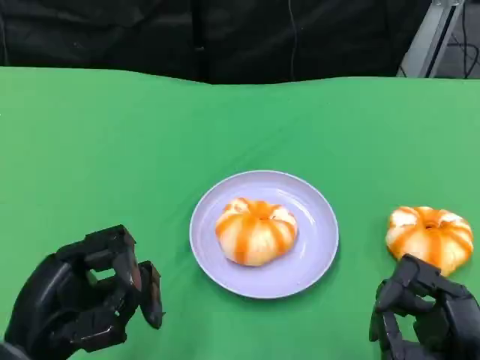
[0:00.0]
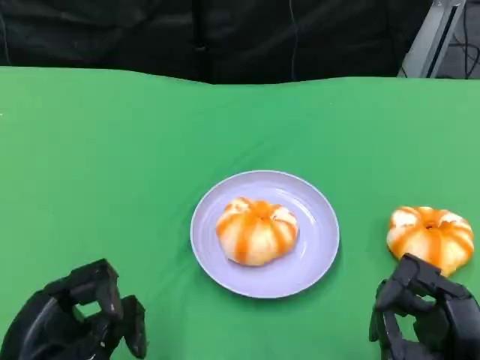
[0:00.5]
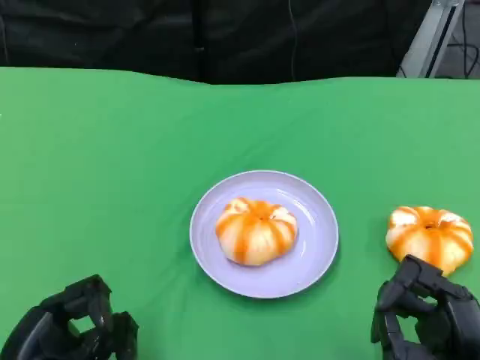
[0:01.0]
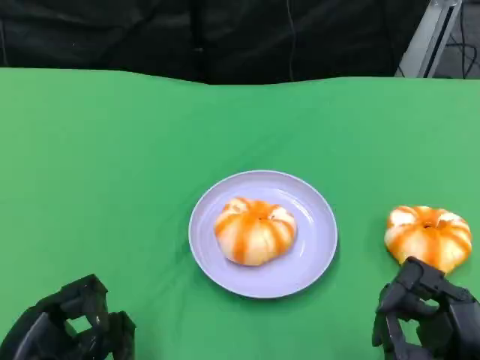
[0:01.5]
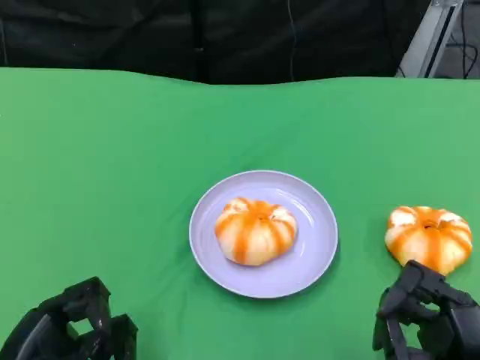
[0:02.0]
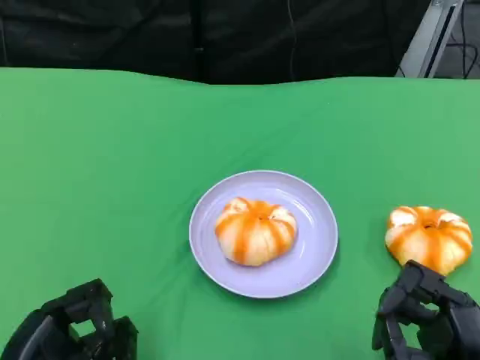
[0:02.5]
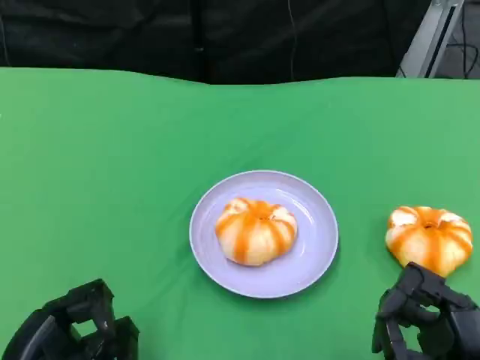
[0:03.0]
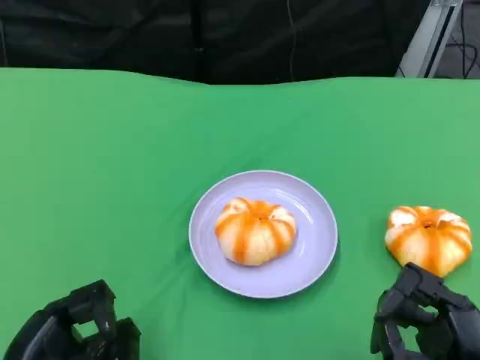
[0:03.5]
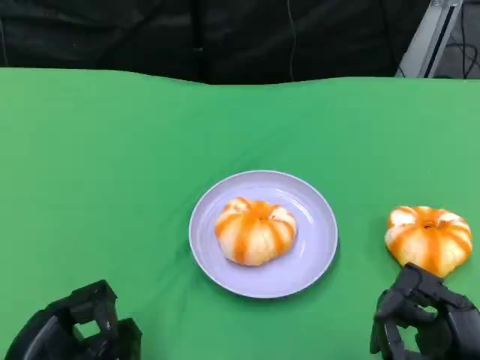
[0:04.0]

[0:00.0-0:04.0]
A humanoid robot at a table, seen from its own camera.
Task of the whole recording: Grasp the bread from the table and place it into the plate.
0:00.0 to 0:02.0: The left hand shifts roughly 5 cm downward.
0:02.0 to 0:04.0: Both hands stay put.

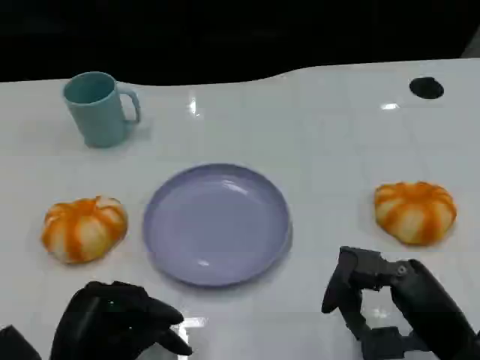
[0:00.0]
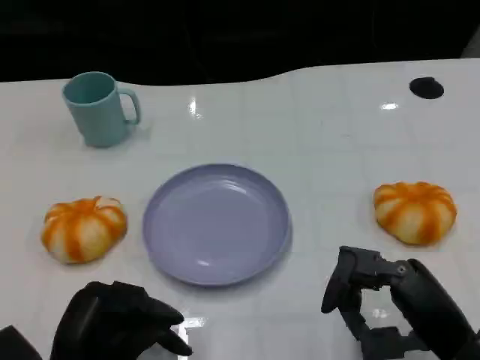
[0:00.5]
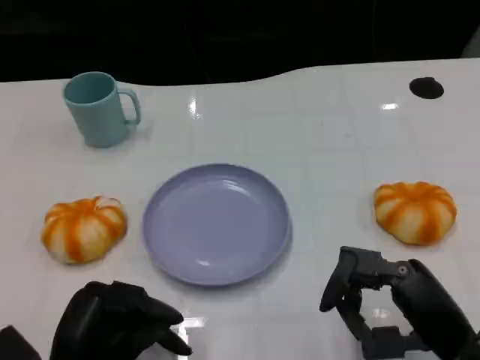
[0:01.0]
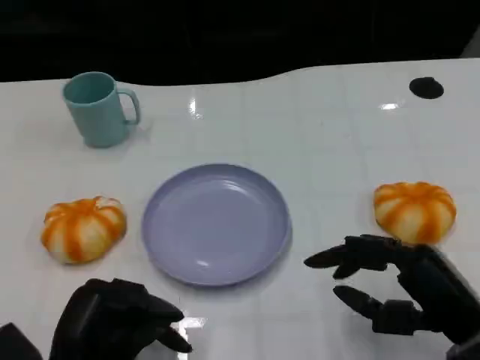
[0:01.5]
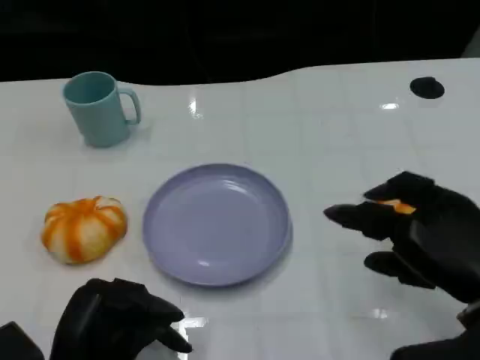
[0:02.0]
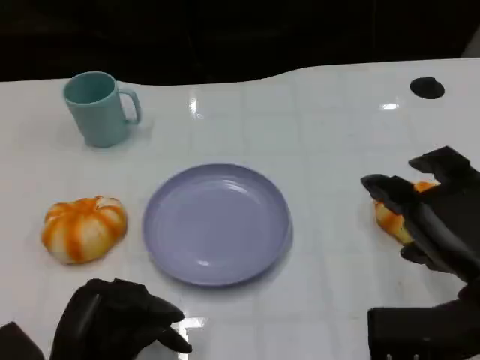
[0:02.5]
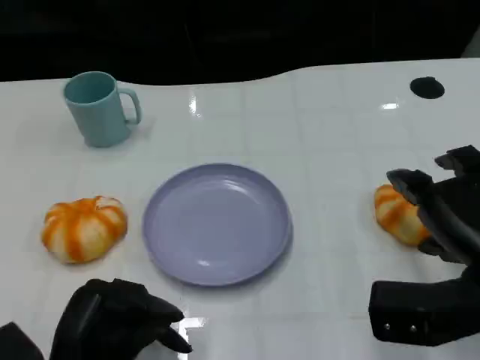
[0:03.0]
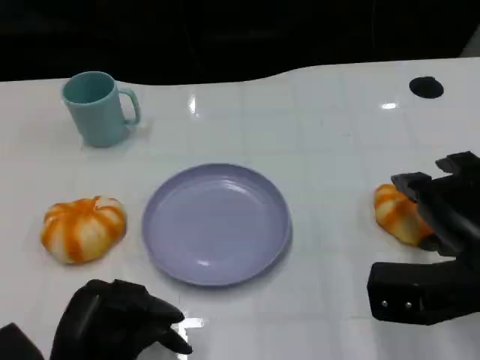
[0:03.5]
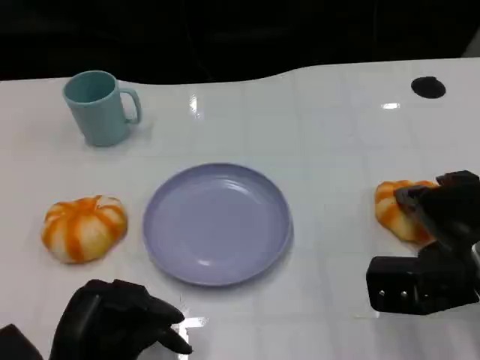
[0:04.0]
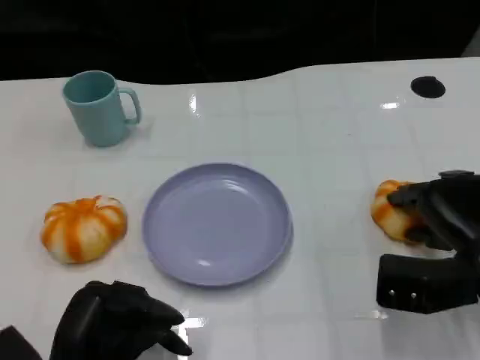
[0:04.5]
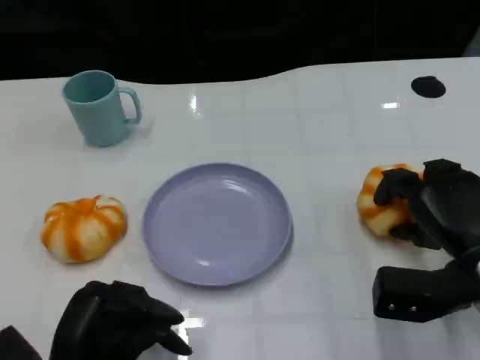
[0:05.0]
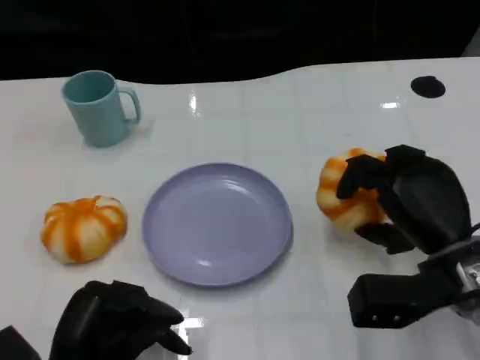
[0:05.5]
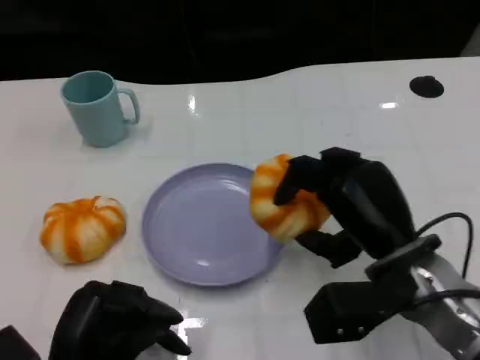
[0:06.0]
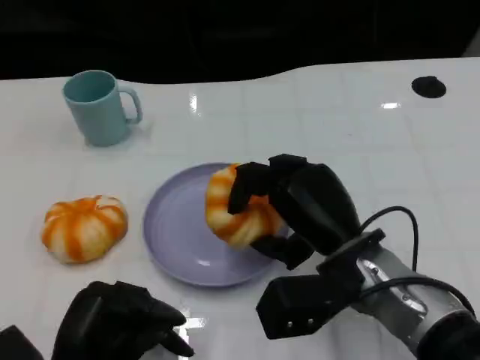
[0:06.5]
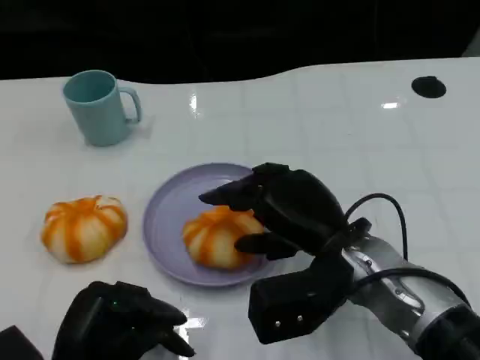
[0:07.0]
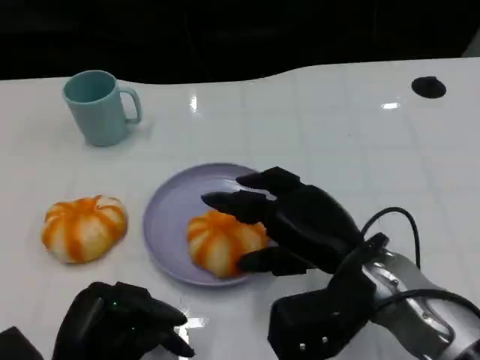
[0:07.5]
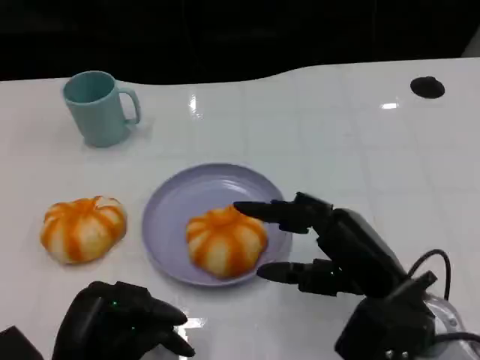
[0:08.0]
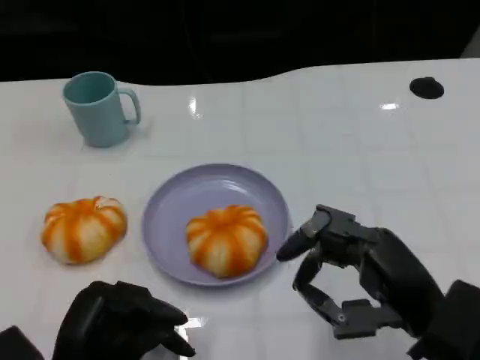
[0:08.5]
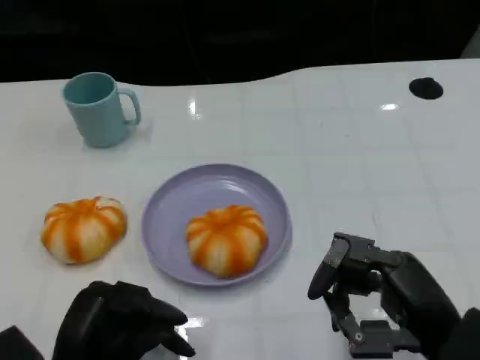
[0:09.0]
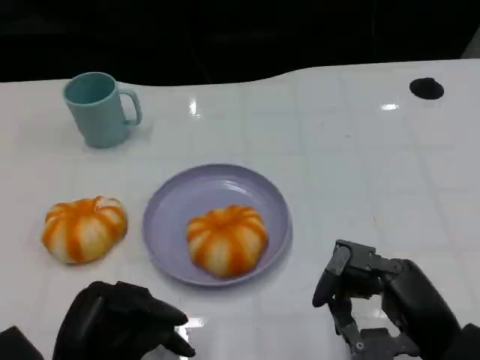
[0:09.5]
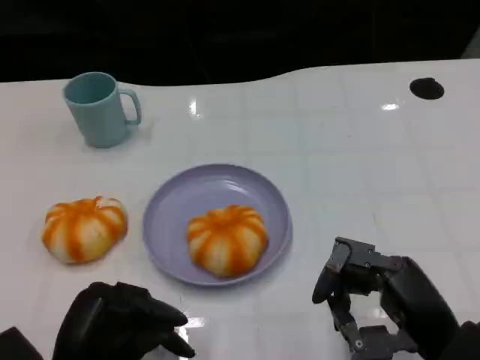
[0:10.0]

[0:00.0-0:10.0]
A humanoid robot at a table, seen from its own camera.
Task of the whole recording: Grasp the bread from the table and place it into the plate.
0:00.0 to 0:02.0: The right hand changes place by about 5 cm.
0:02.0 to 0:04.0: The right hand goes roughly 5 cm forward.
0:04.0 to 0:06.0: The right hand shifts some 10 cm to the left.
0:08.0 to 0:10.0: The right hand ends up roughly 5 cm from where it was.

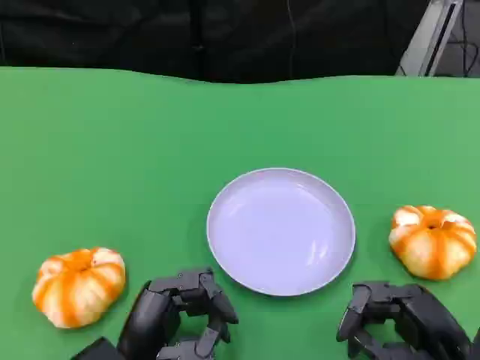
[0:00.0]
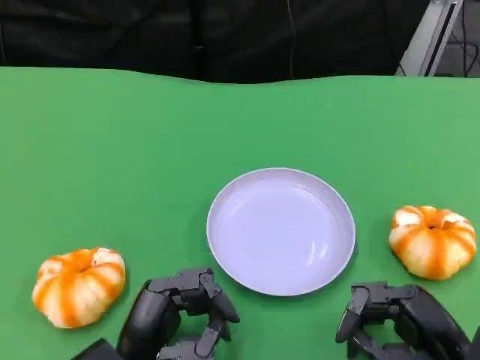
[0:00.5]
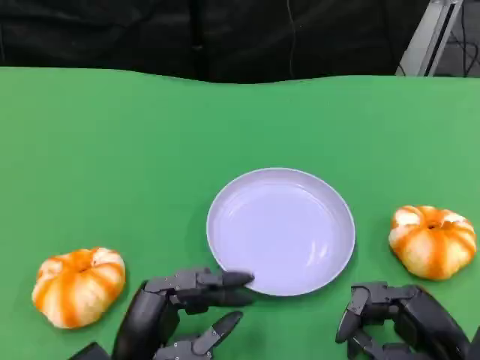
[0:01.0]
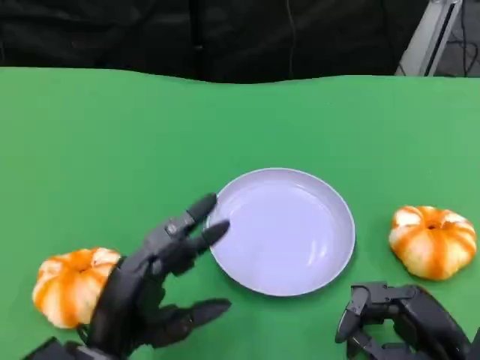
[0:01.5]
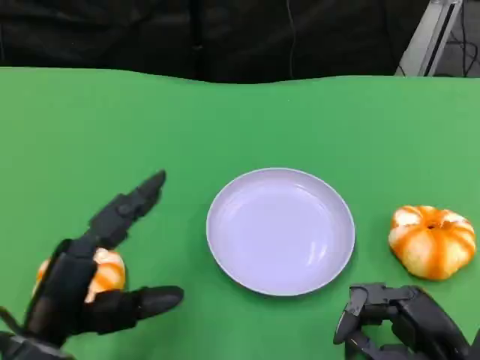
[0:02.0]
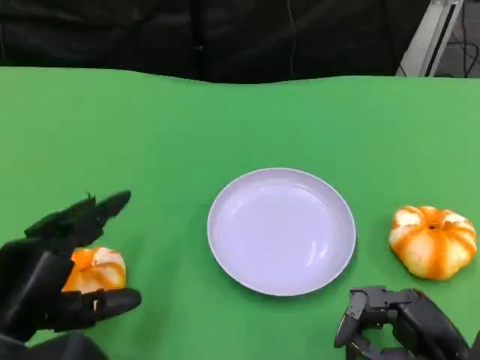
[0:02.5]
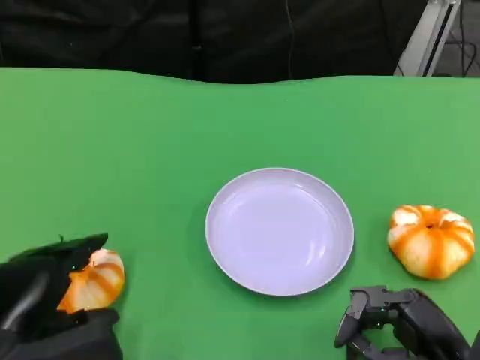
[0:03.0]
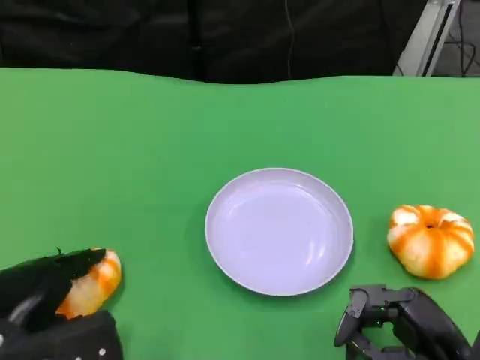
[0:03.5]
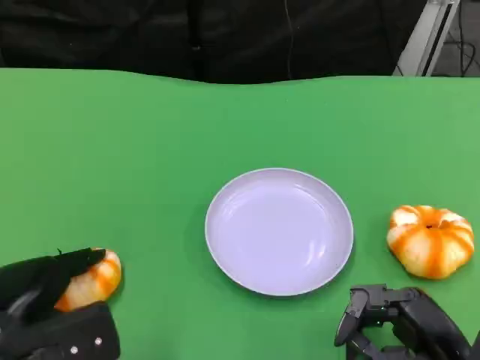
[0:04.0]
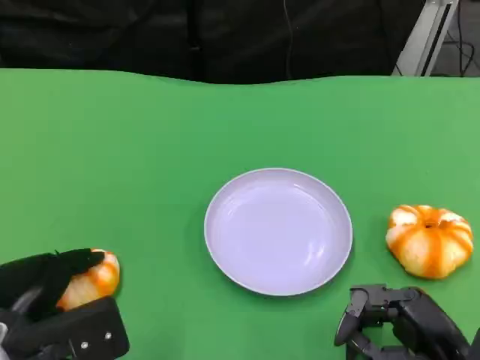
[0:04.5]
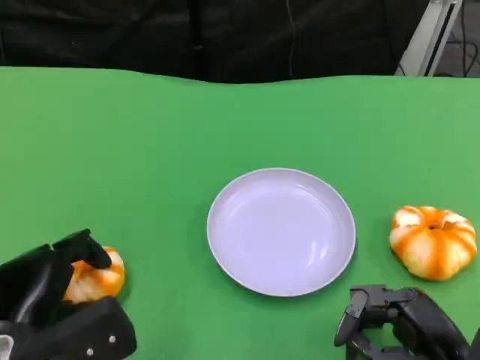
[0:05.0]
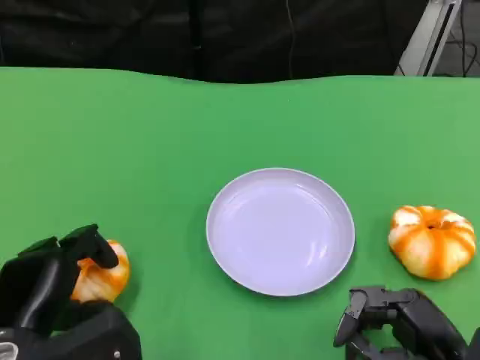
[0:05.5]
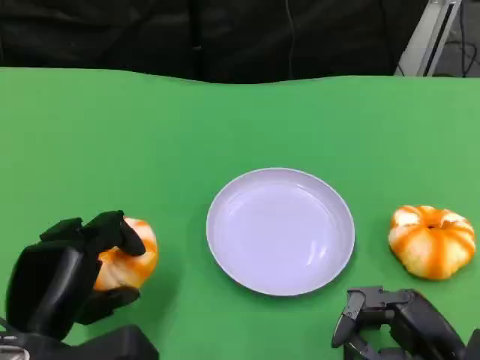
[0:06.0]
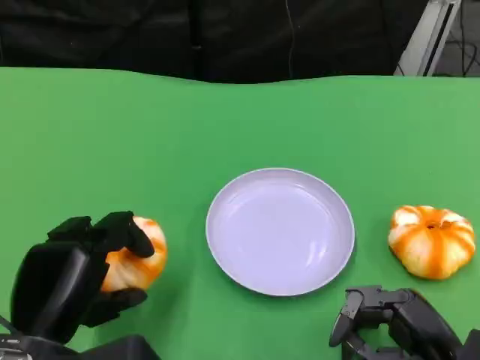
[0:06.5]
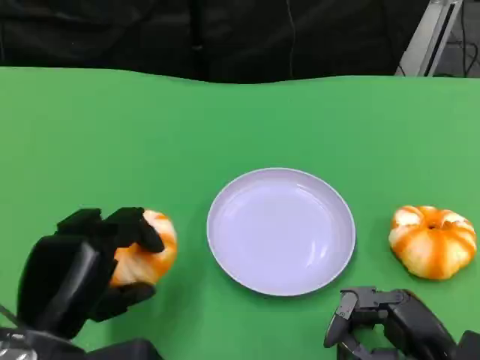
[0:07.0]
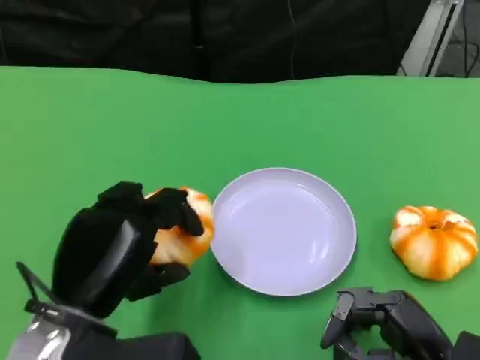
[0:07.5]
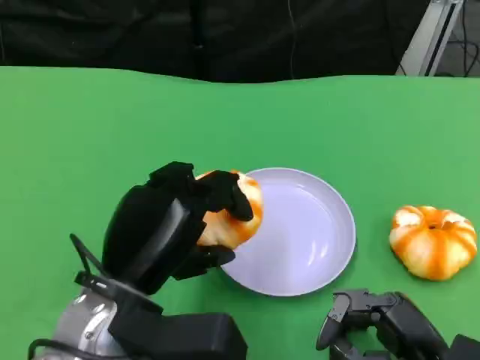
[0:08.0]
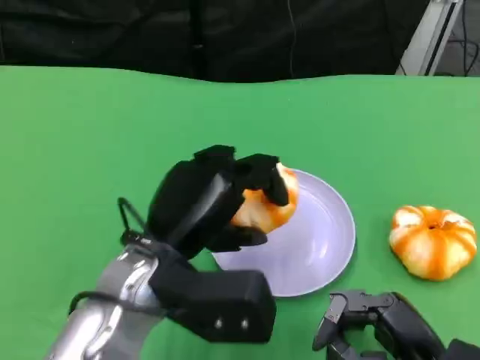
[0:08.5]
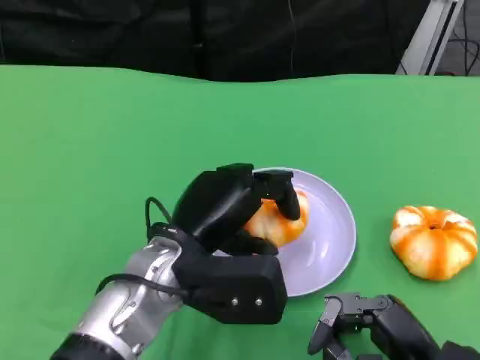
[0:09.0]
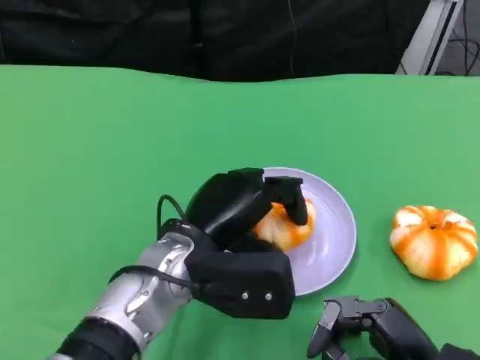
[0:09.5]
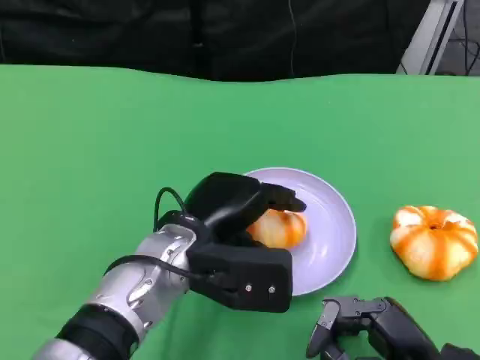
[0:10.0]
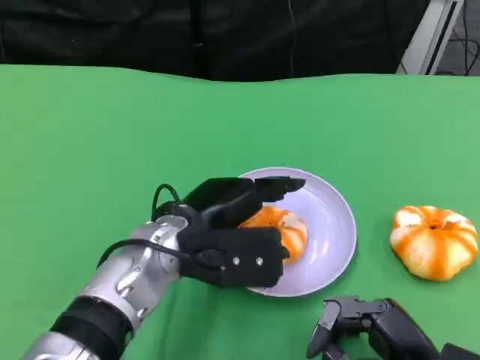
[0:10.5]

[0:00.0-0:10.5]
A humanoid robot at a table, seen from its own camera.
Task of the whole recording: Grasp the bread from the table and place it into the plate.
0:00.0 to 0:02.0: The left hand shifts approximately 10 cm to the left and upward.
0:04.0 to 0:06.5: The left hand moves roughly 5 cm.
0:06.5 to 0:08.5: The left hand heads to the right and forward, covering approximately 10 cm.
0:08.5 to 0:10.5: The left hand shifts by approximately 5 cm.

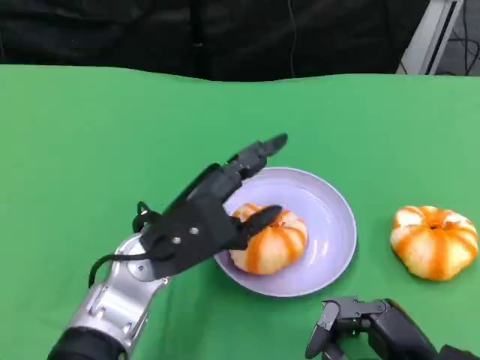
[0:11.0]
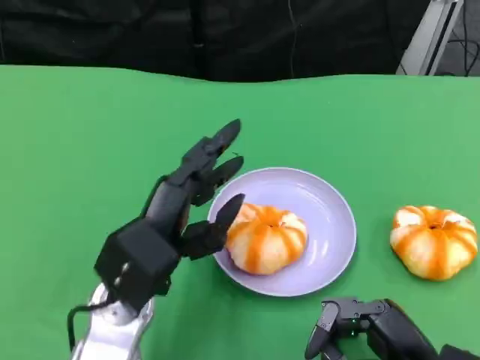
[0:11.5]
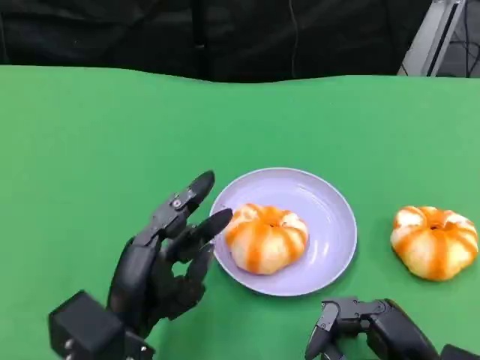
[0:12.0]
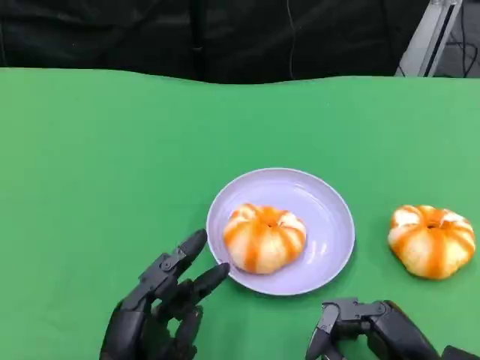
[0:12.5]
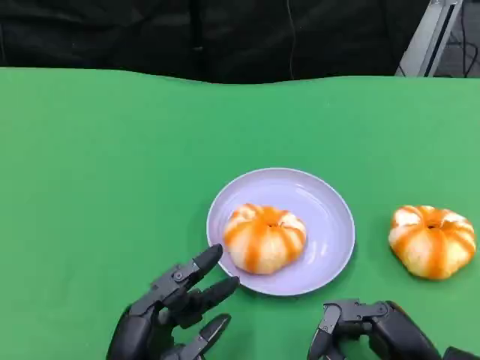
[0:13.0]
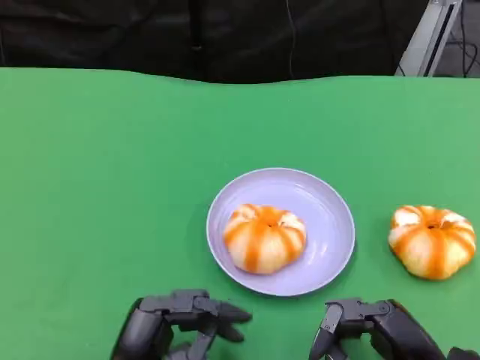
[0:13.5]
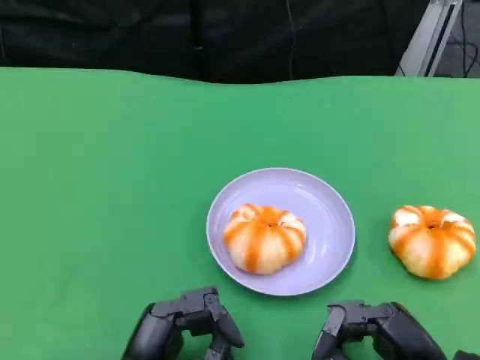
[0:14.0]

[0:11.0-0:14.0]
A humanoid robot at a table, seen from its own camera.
Task of the whole recording: Grasp the bread from the table and place it into the plate.
0:11.0 to 0:12.5: The left hand shifts some 15 cm backward and downward.
0:12.5 to 0:14.0: There are only small adjustments of the hands.
